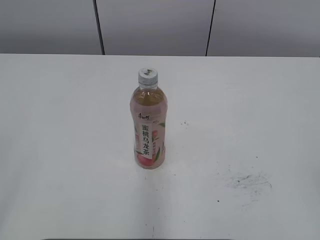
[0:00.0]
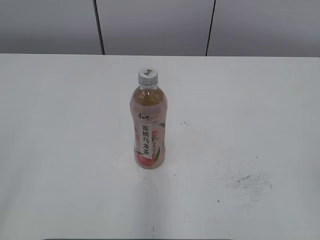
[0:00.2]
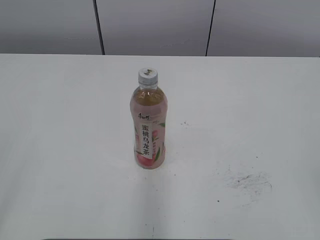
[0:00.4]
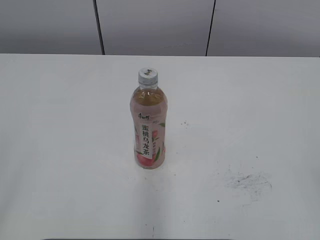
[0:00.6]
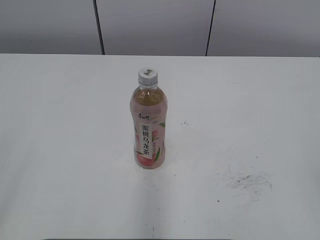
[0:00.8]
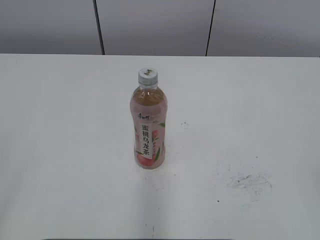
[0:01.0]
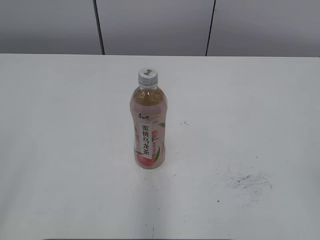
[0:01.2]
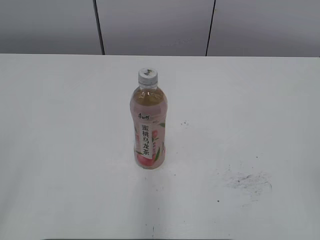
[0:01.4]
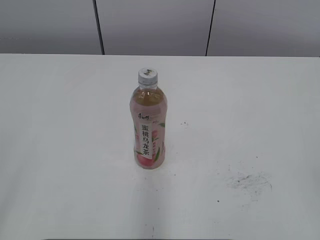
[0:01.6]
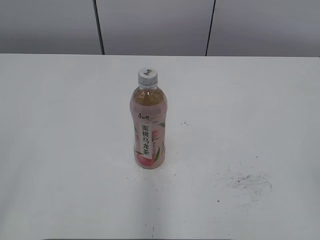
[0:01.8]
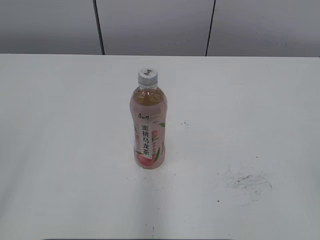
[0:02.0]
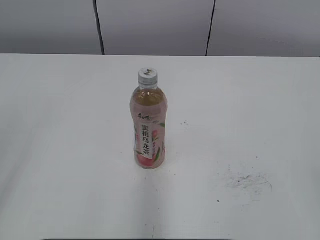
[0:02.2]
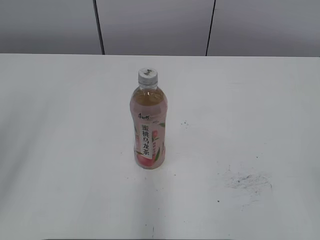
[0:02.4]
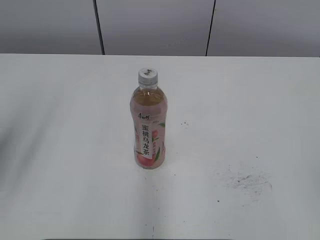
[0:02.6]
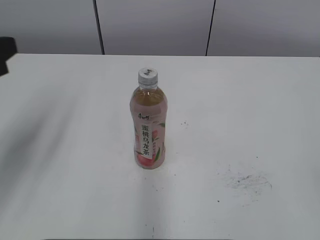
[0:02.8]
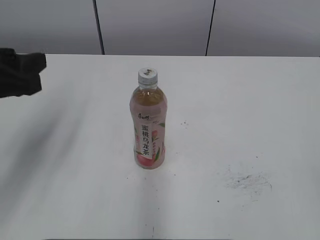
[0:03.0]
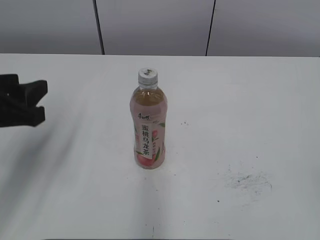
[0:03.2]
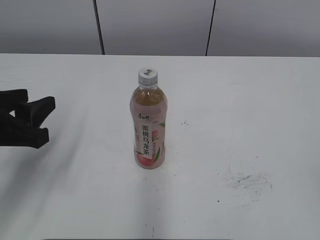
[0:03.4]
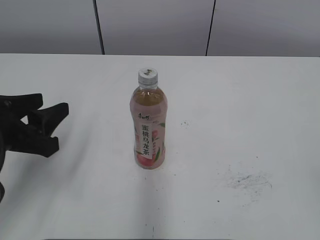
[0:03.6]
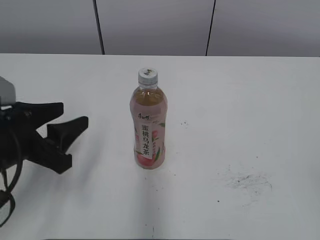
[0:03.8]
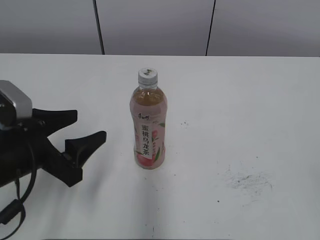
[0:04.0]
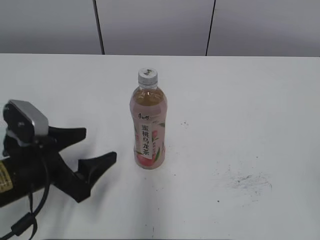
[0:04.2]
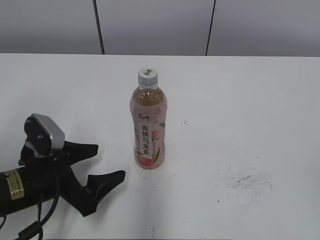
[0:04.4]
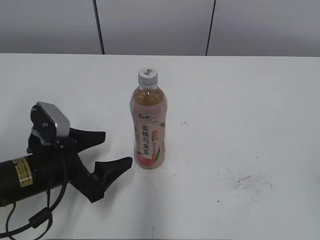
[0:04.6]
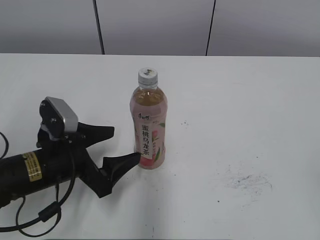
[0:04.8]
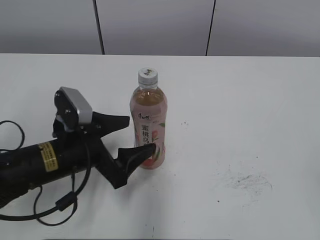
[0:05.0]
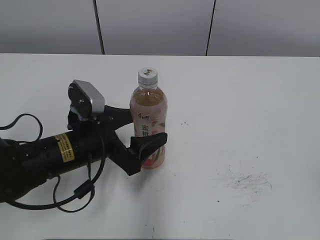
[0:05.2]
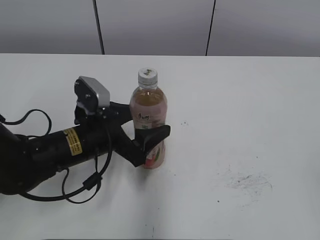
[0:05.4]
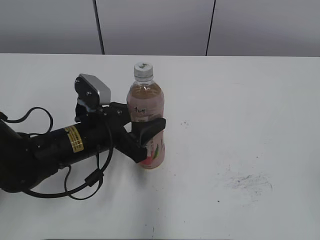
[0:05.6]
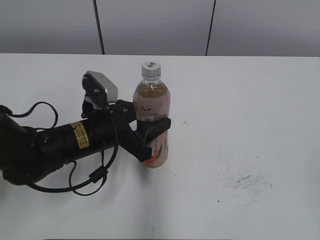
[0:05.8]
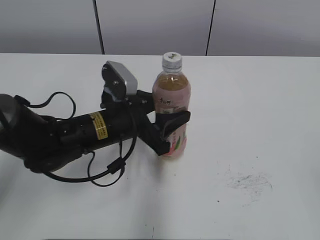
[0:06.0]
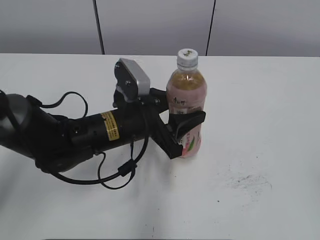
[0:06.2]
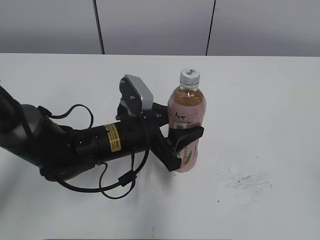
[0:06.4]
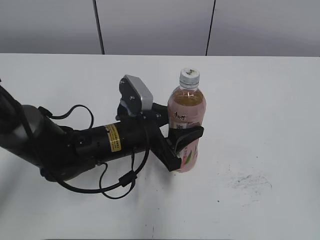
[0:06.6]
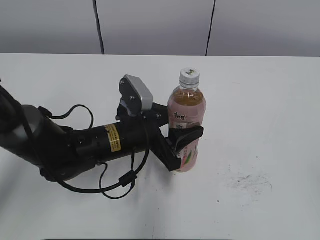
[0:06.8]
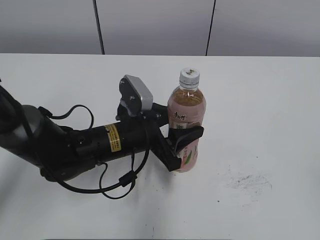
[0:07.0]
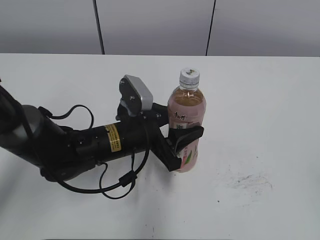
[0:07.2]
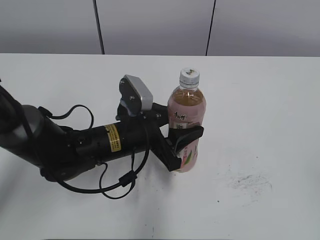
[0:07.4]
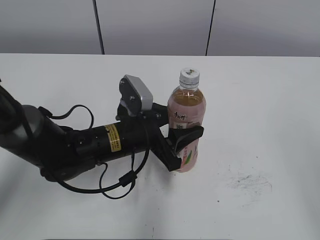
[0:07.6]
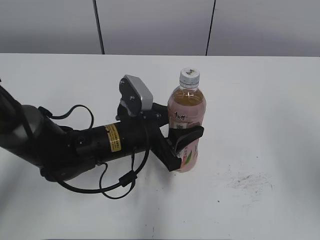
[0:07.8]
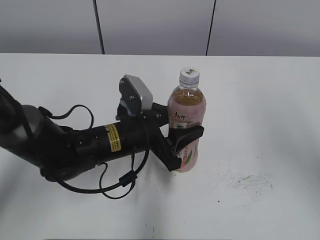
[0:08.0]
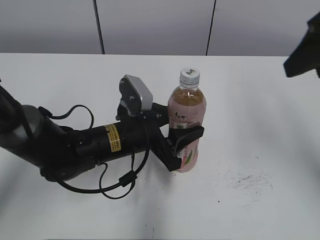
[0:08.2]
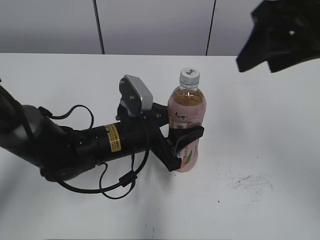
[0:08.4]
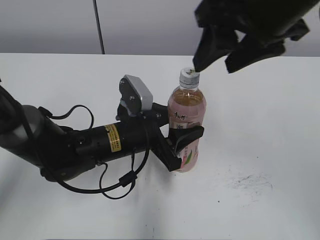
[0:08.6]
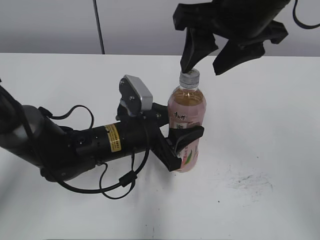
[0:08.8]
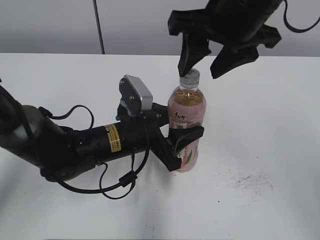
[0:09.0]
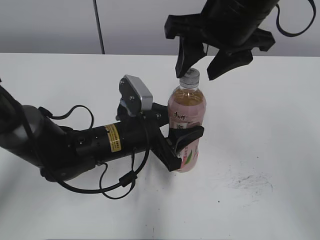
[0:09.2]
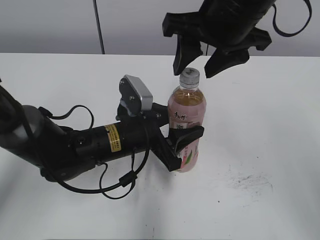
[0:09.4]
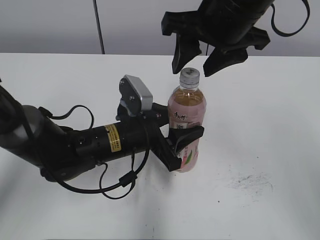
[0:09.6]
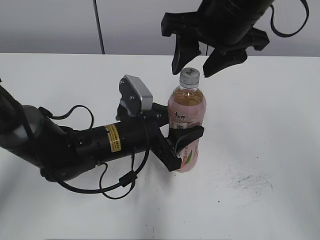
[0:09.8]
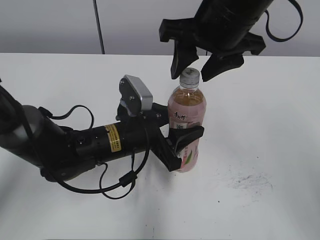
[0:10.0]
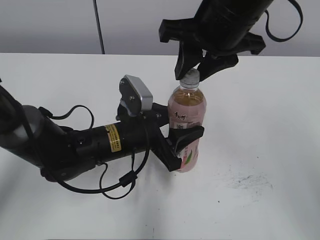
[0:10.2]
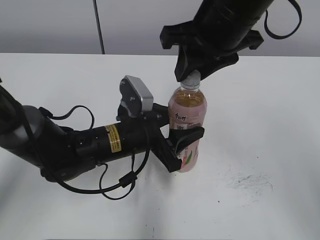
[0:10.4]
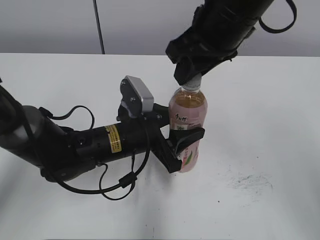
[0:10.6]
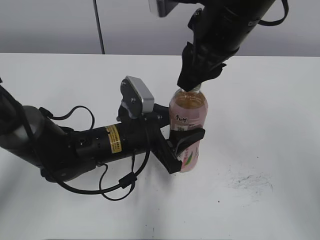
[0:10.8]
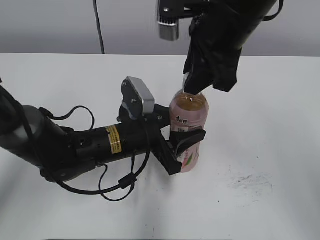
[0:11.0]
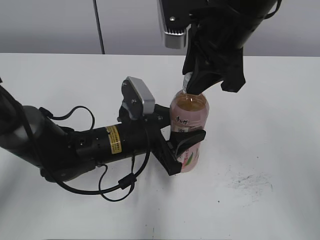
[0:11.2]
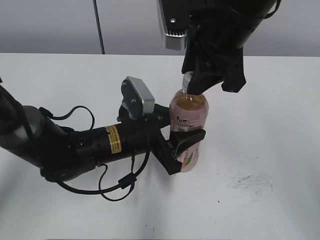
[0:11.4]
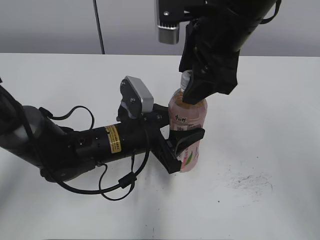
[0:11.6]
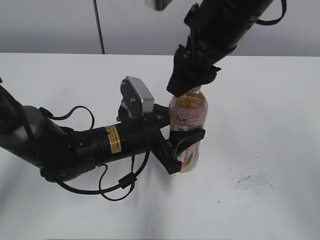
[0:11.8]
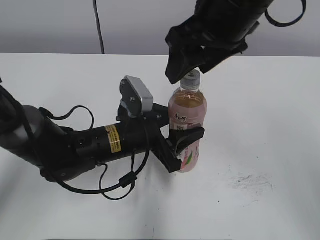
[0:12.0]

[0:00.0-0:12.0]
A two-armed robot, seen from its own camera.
Step, 0:00.0 to 0:05.6: Grab the Peach Oolong Tea with the left hand.
Step, 0:05.8 to 0:10.0: Move the Peach Oolong Tea from left to right.
0:01.6 to 0:03.0: The left gripper goes roughly 20 cm forward.
0:03.0 to 0:04.4: The left gripper shifts approximately 15 cm downward, and opens up.
0:04.4 to 0:06.0: The left gripper is displaced to the right and forward by some 15 cm, and closes.
0:06.0 to 0:07.6: The right gripper shifts by about 5 cm.
0:07.6 to 0:09.0: The right gripper shifts roughly 30 cm forward and to the left.
0:09.0 to 0:10.4: The right gripper closes its fingers.
0:10.4 to 0:12.0: The right gripper opens up.

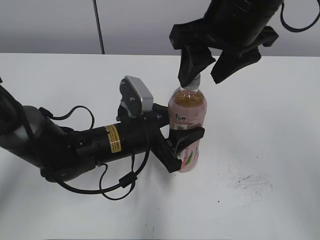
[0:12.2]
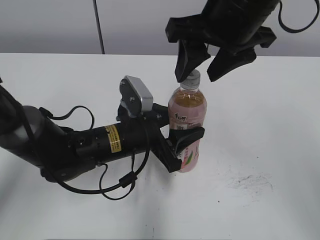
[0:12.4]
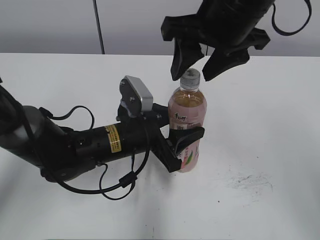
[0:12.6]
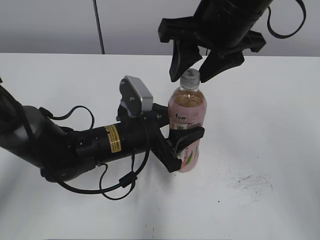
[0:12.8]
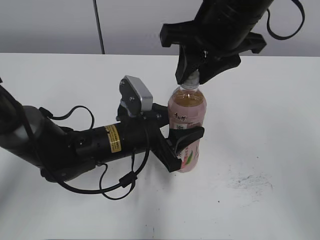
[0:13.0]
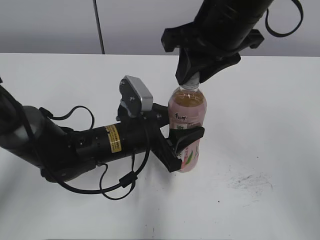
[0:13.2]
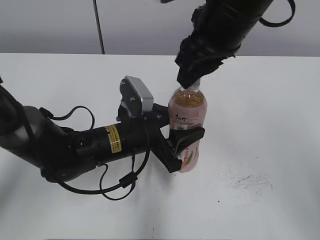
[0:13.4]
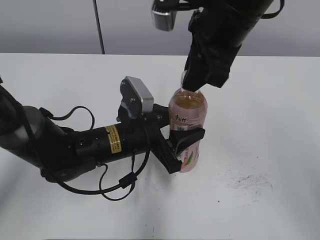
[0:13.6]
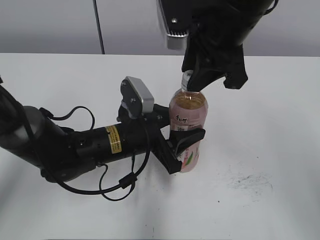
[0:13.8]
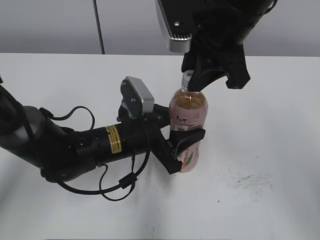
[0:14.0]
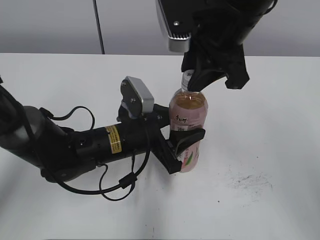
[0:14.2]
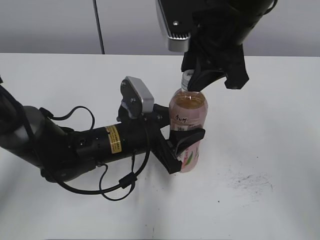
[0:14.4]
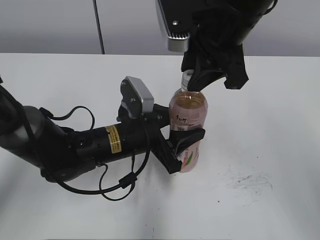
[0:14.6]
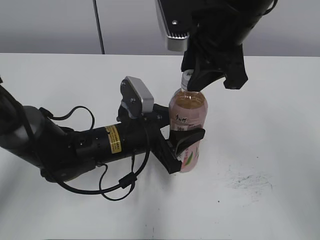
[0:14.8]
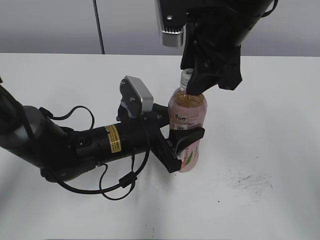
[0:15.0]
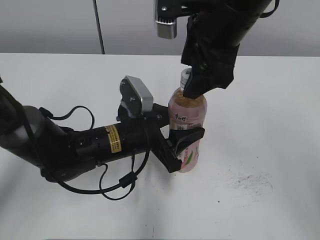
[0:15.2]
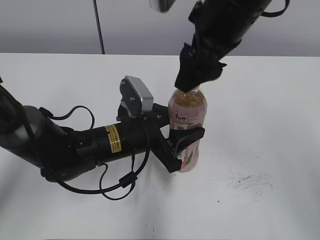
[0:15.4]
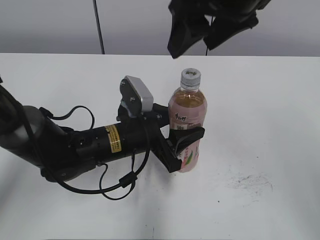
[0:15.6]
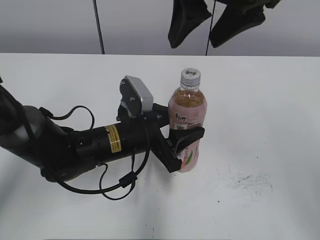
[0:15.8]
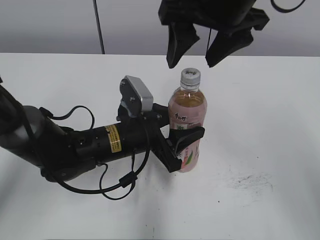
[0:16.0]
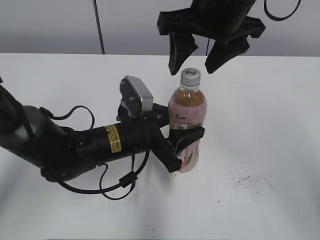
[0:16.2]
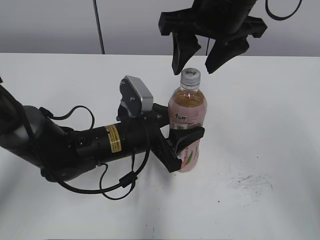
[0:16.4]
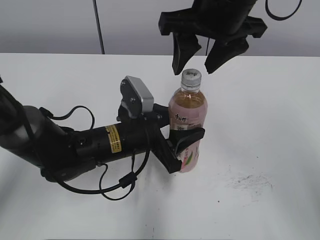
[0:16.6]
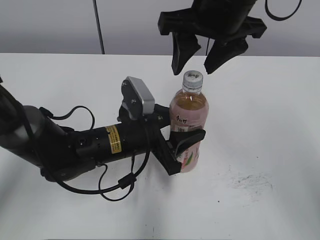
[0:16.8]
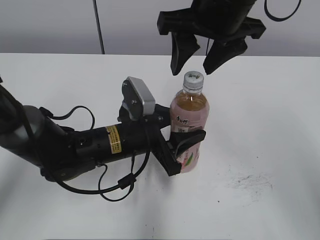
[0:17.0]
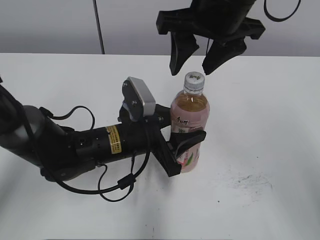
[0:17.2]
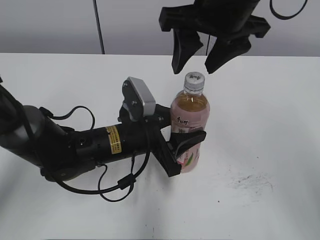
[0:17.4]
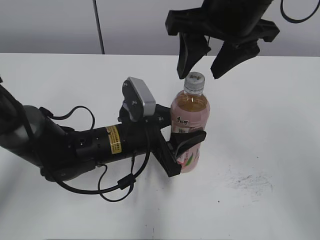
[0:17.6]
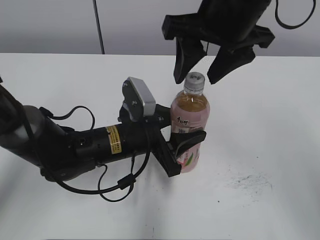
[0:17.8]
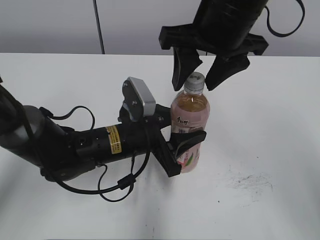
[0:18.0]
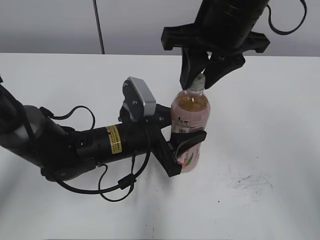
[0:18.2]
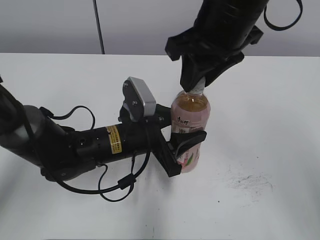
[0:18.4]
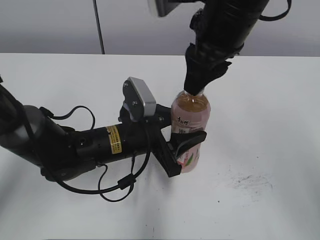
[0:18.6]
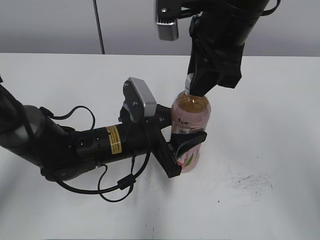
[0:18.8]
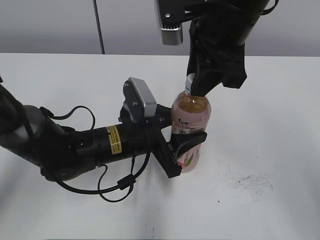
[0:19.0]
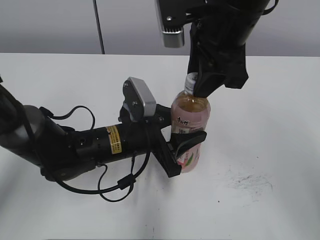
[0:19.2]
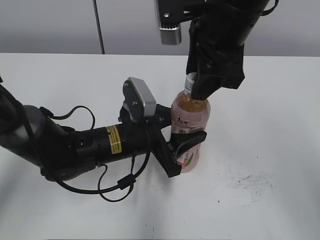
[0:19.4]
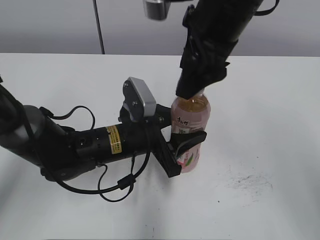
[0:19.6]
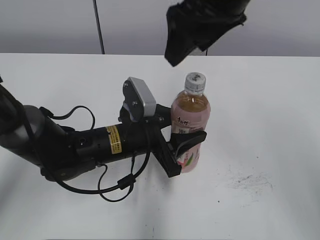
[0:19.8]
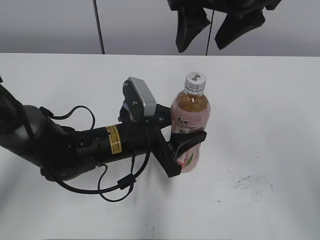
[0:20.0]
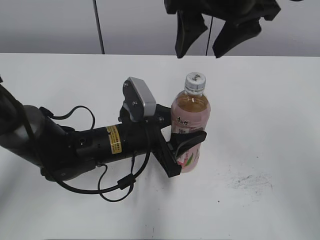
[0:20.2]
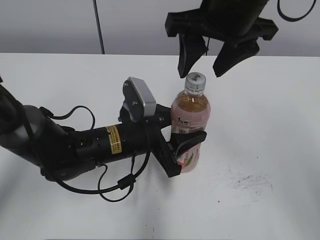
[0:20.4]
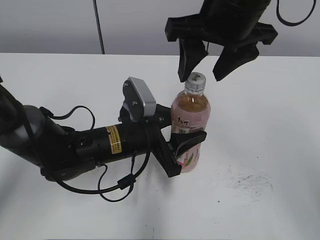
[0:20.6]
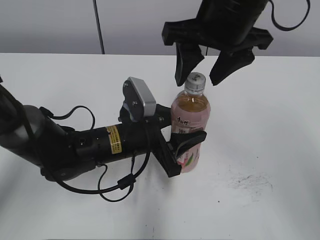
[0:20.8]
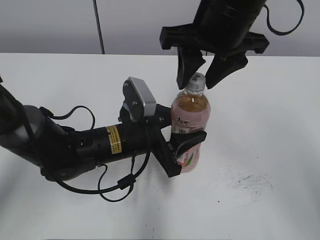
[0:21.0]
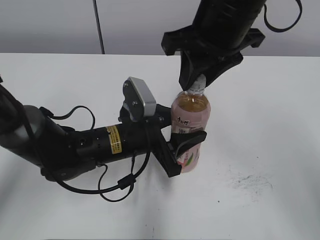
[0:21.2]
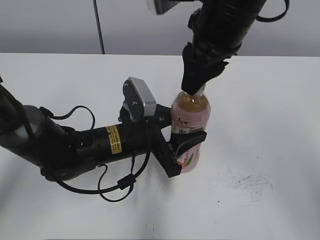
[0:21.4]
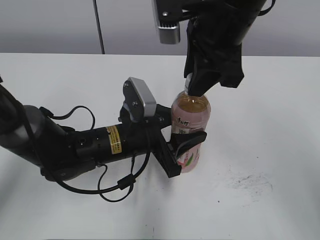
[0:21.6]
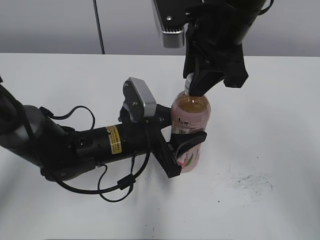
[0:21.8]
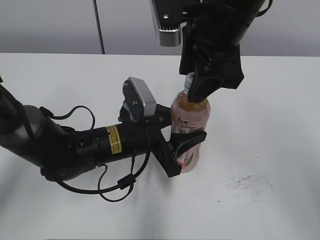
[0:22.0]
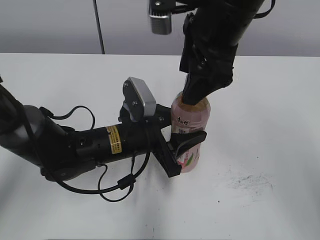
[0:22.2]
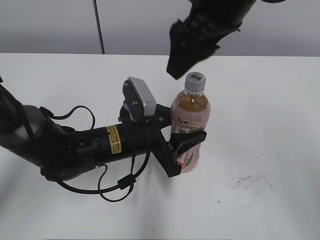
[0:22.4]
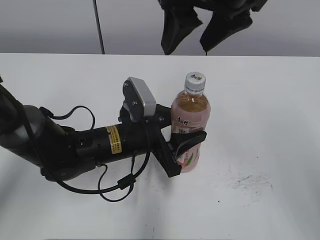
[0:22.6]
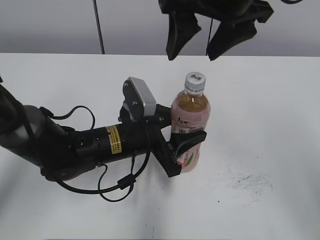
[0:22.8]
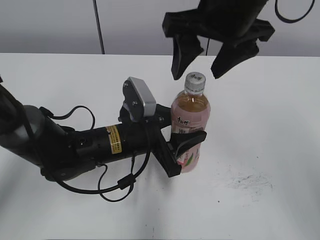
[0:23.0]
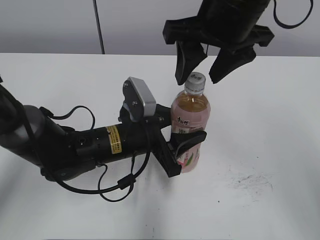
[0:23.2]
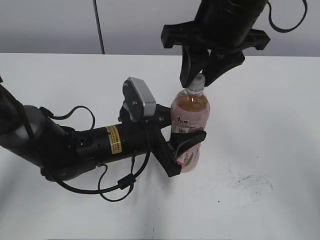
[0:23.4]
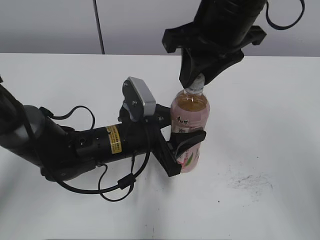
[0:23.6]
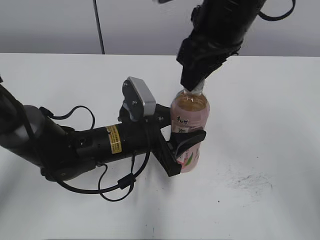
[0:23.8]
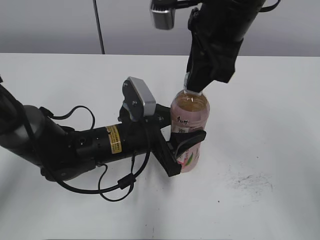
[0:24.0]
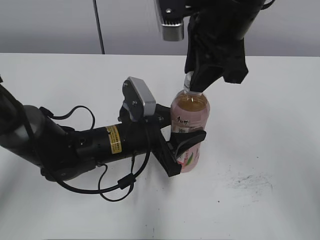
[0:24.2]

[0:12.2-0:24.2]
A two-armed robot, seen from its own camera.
0:12.2 to 0:13.8: The right gripper closes.
0:13.8 to 0:15.2: The right gripper opens up.
0:16.6 to 0:18.2: The right gripper closes its fingers.
0:18.2 to 0:19.8: The right gripper opens.
0:19.8 to 0:21.2: The right gripper closes.
0:21.2 to 0:22.6: The right gripper opens up.
0:22.6 to 0:24.2: The right gripper closes up.
